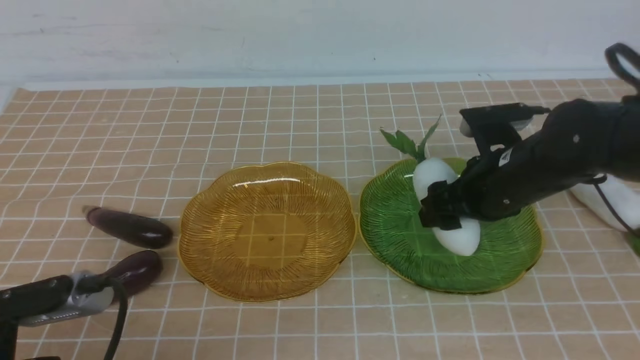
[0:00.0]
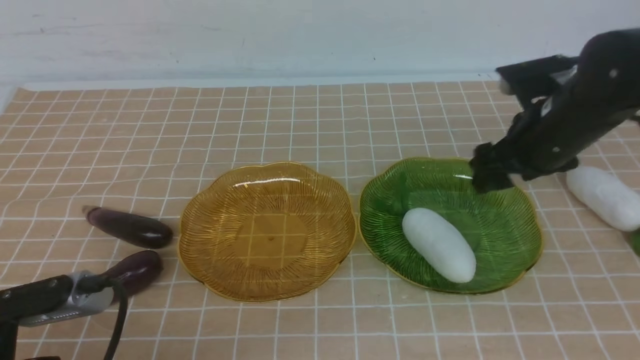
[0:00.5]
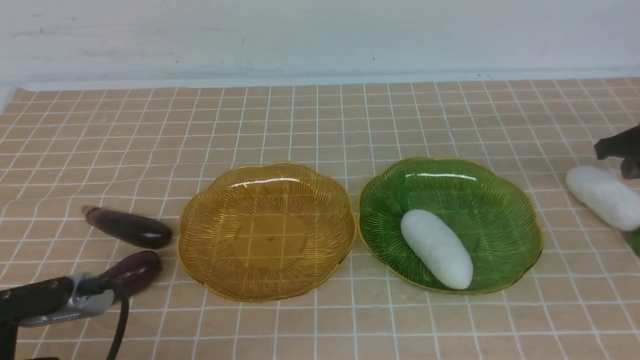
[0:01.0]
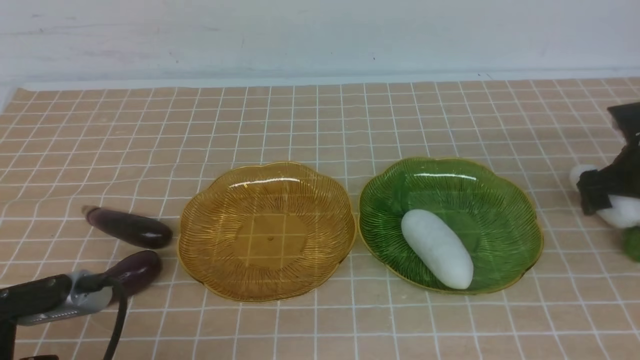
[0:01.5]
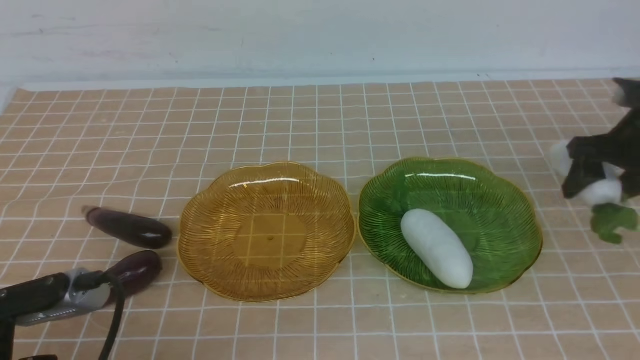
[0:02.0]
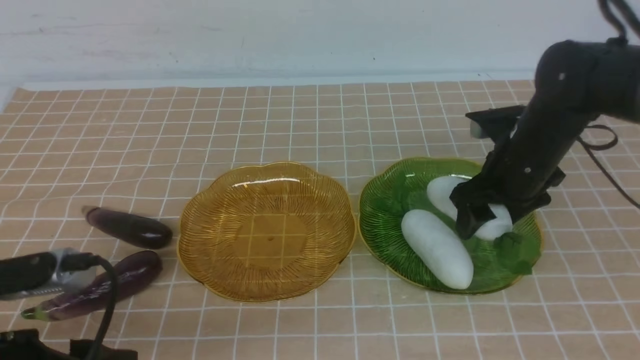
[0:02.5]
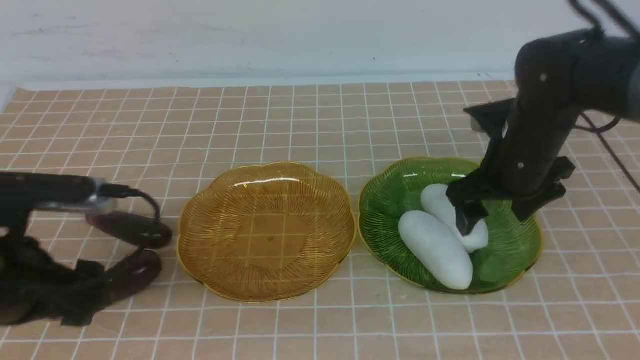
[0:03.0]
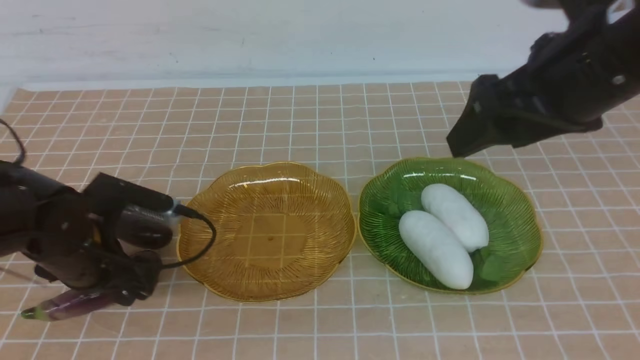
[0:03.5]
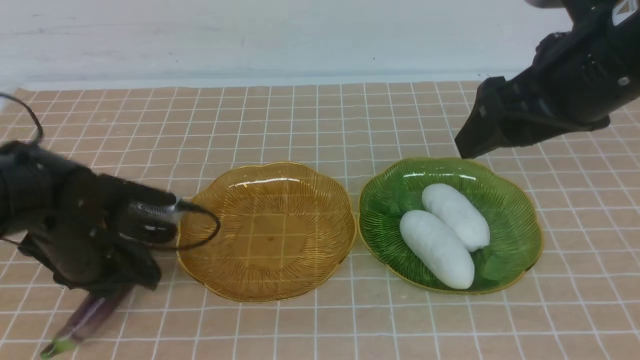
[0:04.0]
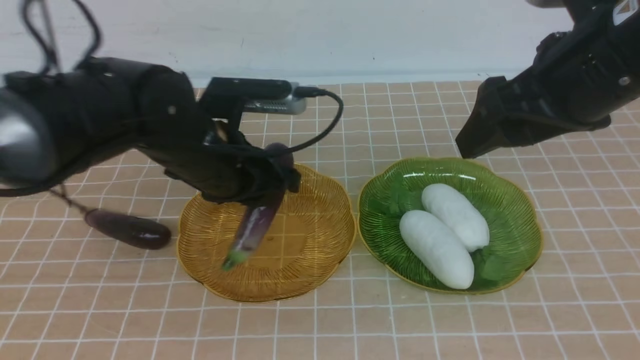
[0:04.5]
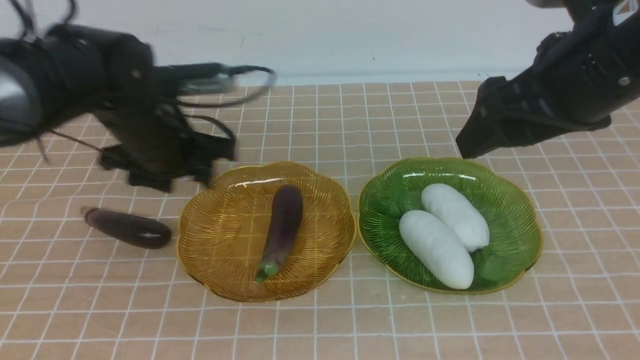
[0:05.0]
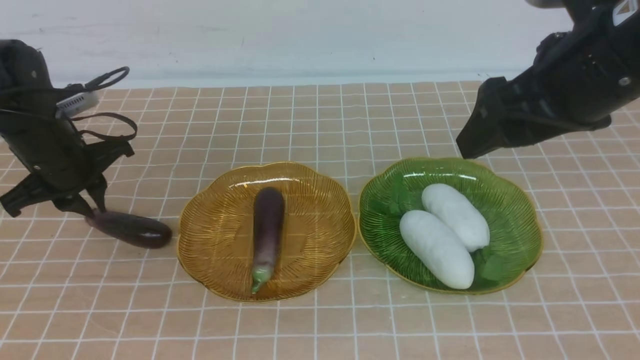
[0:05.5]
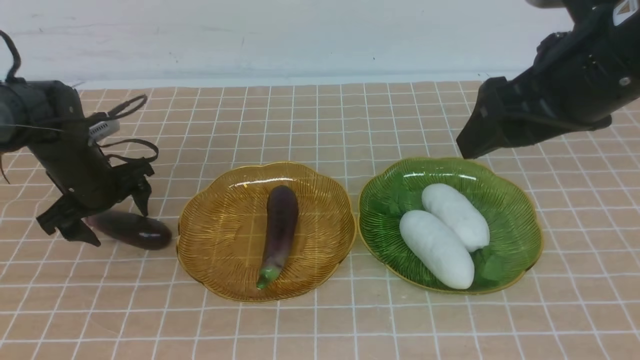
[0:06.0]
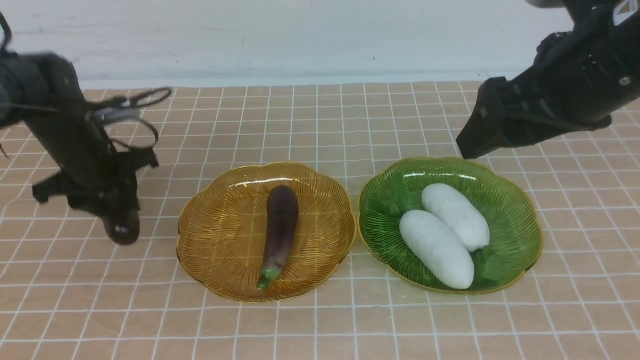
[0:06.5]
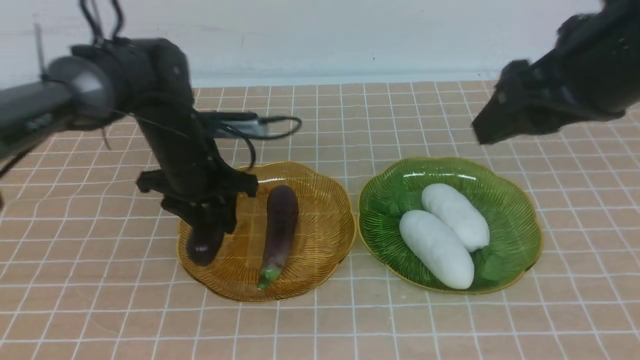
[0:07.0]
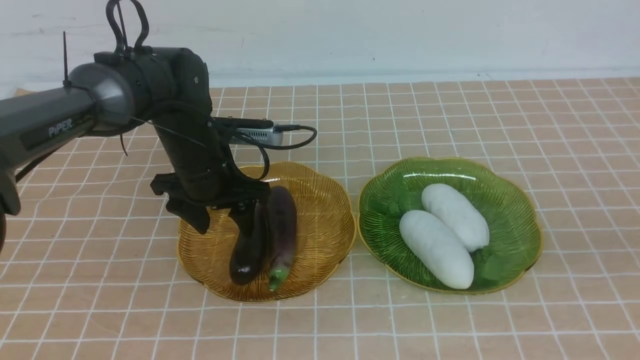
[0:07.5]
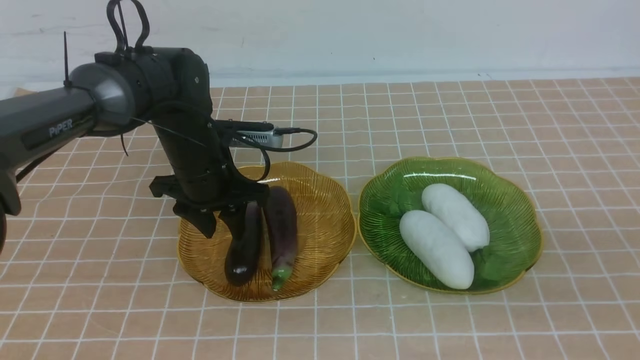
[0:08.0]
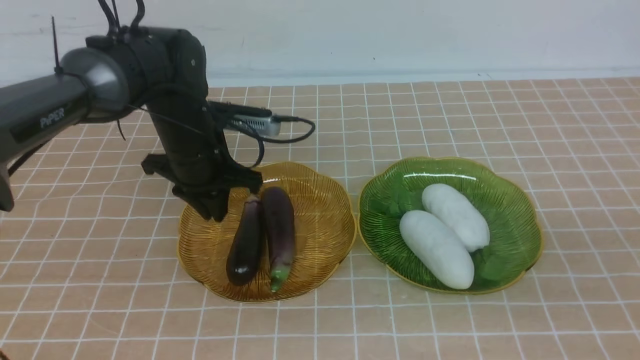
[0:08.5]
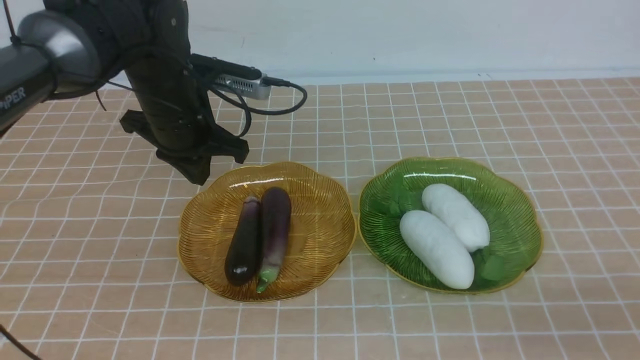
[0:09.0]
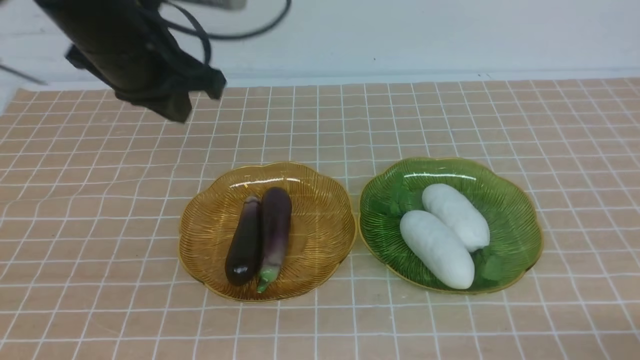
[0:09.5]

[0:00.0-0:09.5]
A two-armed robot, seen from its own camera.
Step, 0:00.0 to 0:02.5: use the right arm to grab a radish and put it into the right plate.
Step, 0:03.0 to 0:07.0: use the left arm to grab an eggplant and put it into the left plate.
0:00.0 to 0:02.0: The right gripper goes about 15 cm to the right and forward, and closes and opens again.
0:02.0 to 0:04.0: The right gripper is displaced upward, to the left and backward by some 25 cm; the left gripper is displaced forward by about 20 cm, and opens, then closes once more.
0:04.0 to 0:05.5: The left gripper is displaced forward and to the left by some 10 cm.
0:05.5 to 0:07.5: The right gripper is displaced backward and to the right by some 20 cm, and closes up; the left gripper travels to the right by roughly 15 cm, and opens up.
0:07.5 to 0:09.5: The right gripper shifts roughly 15 cm downward, while the left gripper goes some 20 cm upward, and closes.

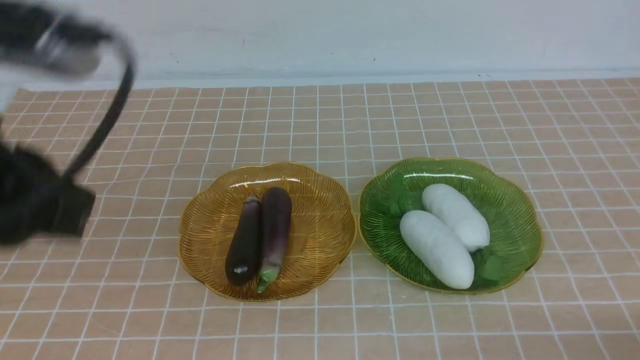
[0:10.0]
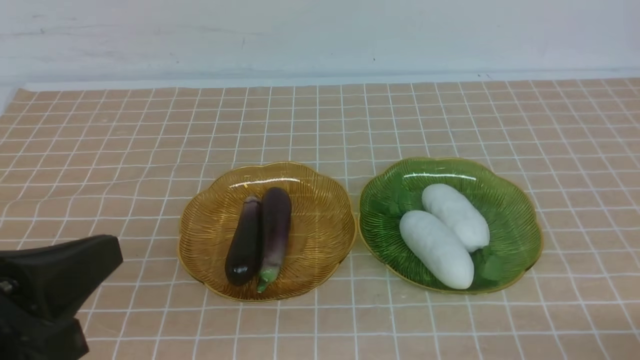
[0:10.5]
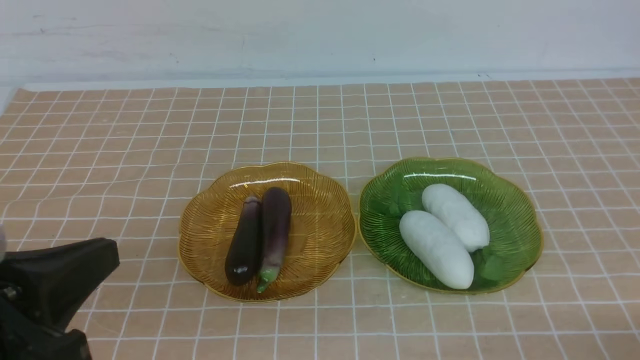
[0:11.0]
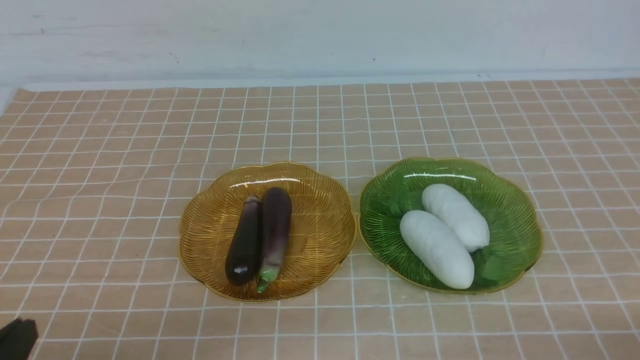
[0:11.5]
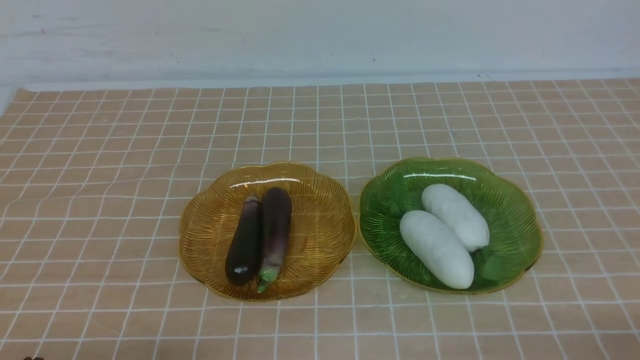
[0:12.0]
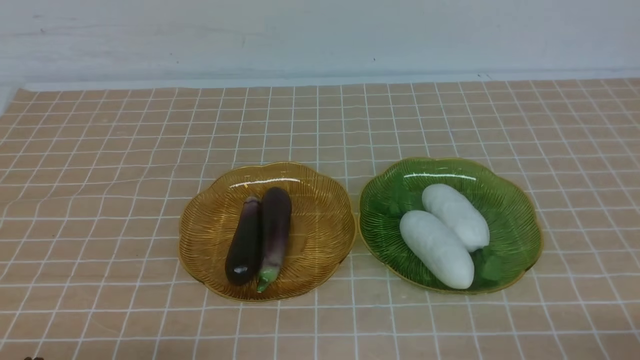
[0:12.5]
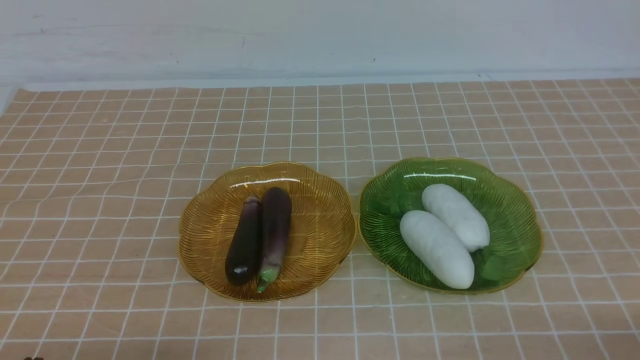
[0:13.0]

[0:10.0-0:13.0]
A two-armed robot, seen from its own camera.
0:10.0 to 0:11.5: The left gripper shifts about 20 cm downward and backward.
0:11.5 to 0:13.0: Both grippers stay put.
